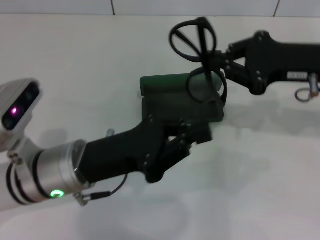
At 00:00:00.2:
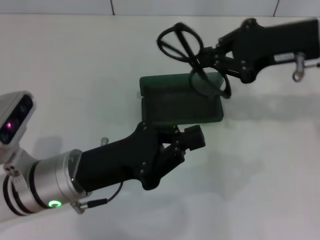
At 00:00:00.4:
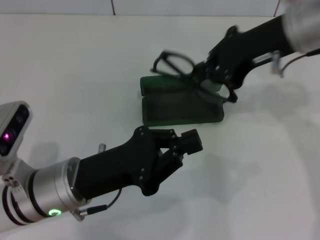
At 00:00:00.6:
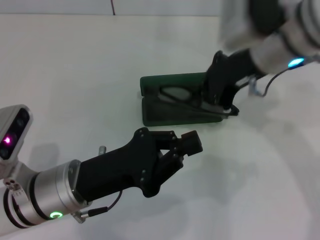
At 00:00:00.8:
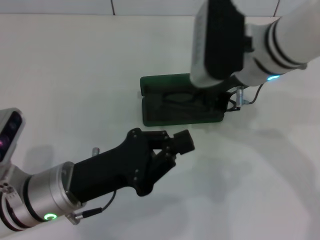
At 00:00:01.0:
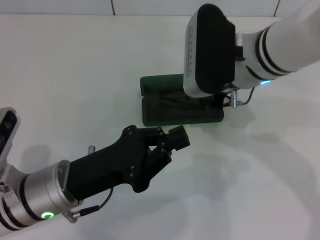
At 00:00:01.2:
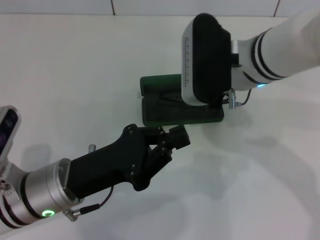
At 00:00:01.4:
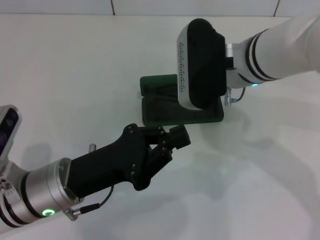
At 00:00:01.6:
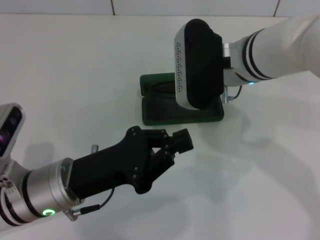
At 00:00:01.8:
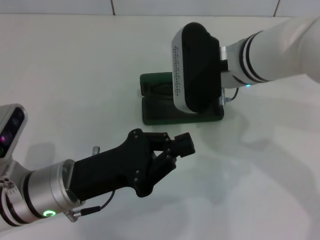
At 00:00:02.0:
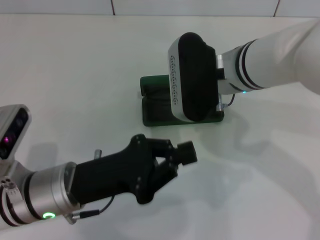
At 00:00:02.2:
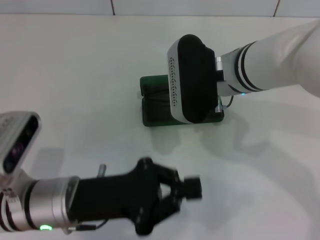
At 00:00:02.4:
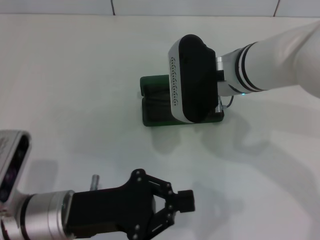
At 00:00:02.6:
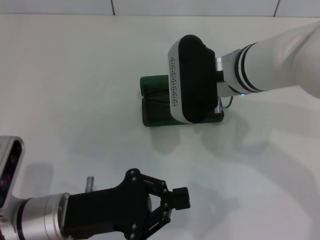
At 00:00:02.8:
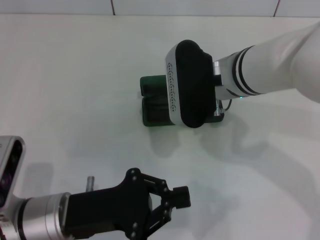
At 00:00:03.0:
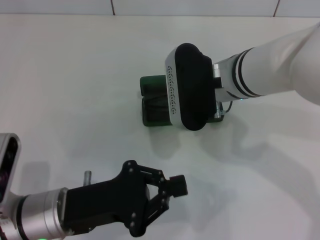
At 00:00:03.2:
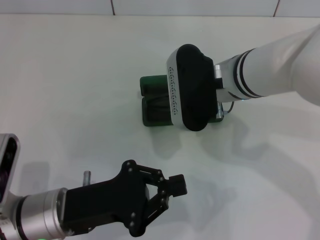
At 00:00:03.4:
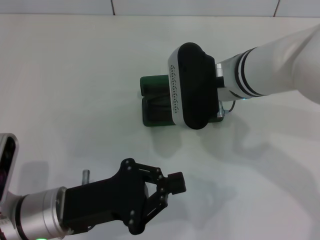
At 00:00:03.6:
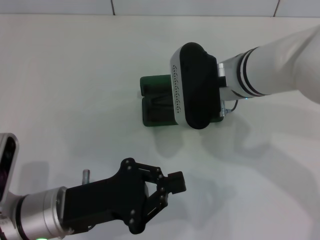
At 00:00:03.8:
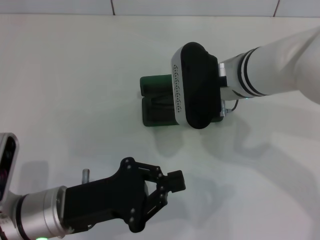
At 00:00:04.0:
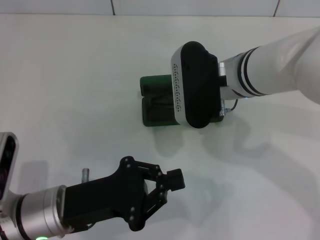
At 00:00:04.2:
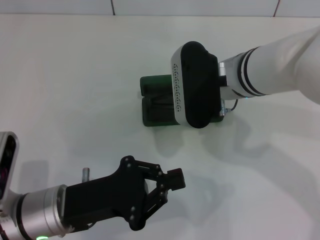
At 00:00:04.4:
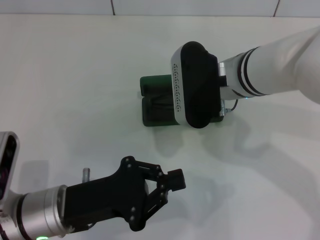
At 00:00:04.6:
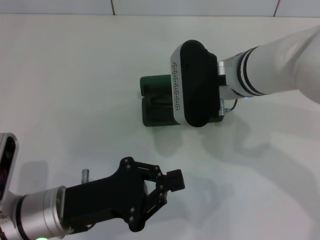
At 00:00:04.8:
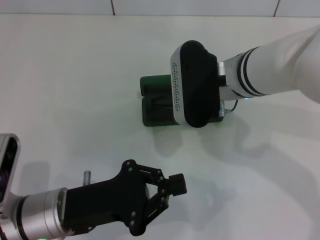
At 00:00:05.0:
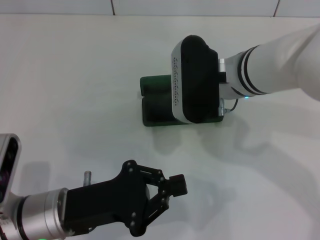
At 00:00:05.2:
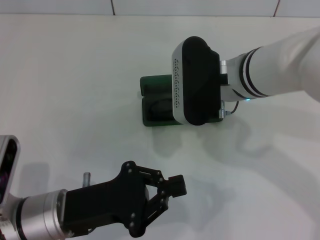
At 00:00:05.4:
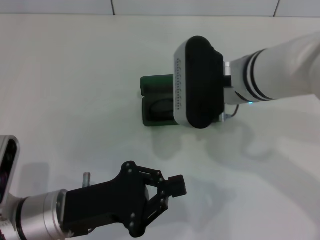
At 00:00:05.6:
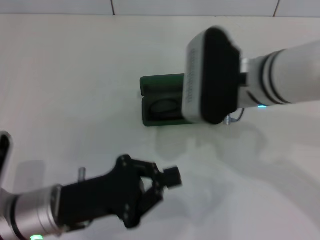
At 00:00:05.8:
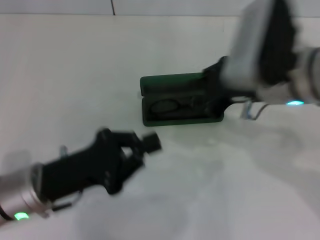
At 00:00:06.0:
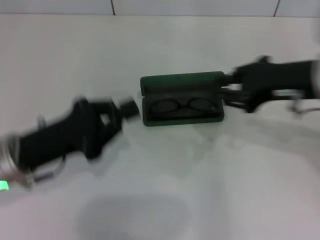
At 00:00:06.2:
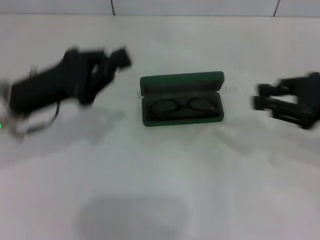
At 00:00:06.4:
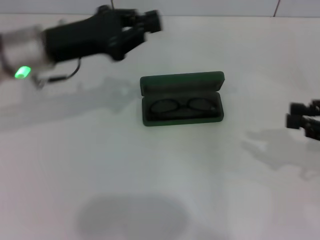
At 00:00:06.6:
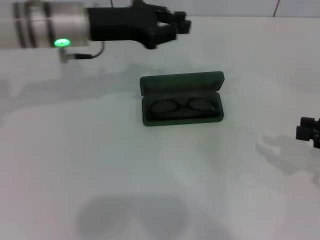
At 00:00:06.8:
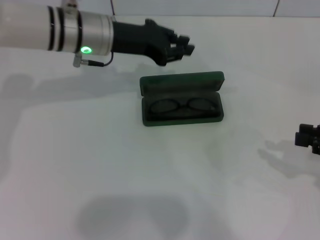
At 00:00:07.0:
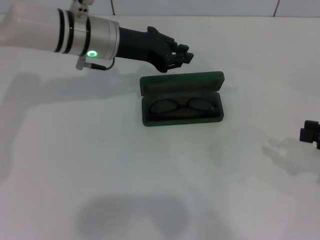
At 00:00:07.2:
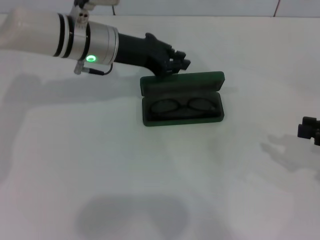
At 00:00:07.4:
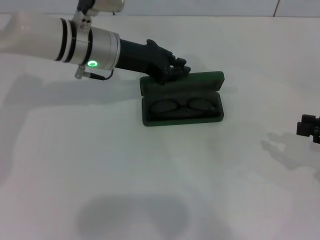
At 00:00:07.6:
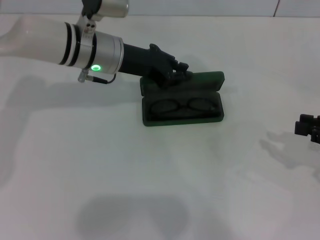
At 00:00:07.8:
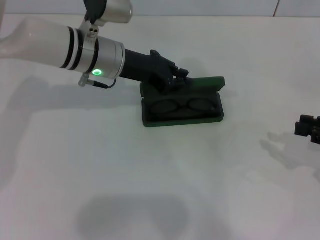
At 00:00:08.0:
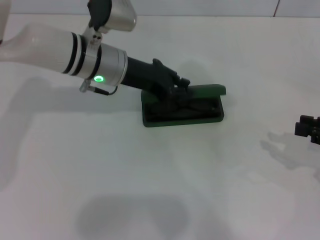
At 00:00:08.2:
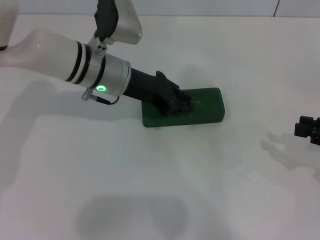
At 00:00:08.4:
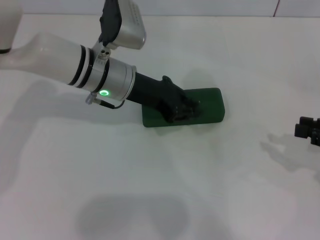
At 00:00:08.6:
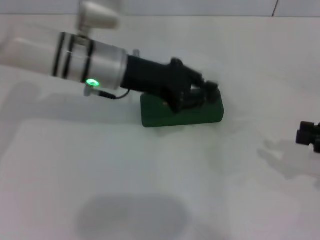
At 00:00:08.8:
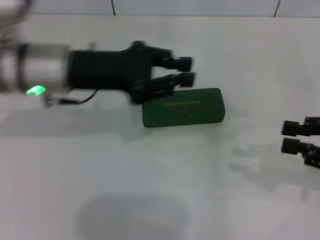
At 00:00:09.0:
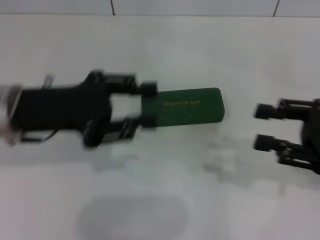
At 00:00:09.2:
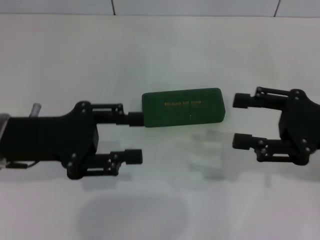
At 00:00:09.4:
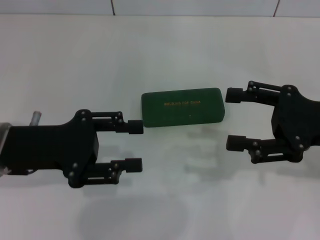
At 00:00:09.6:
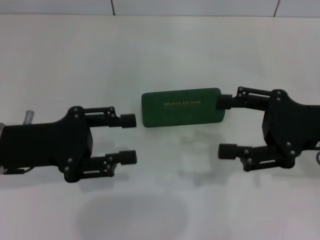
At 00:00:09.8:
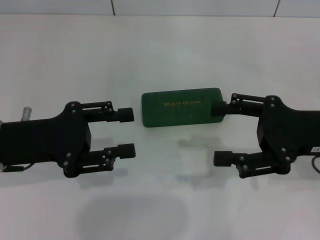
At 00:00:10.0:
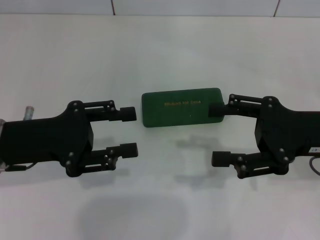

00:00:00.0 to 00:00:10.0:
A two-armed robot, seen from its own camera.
Step, 00:00:00.0 to 00:00:05.4: Put the glasses into the case with your right hand.
Step, 00:00:05.8 to 00:00:08.2: Close the glasses case with your left hand.
00:00:00.0 to 00:00:01.4: The right gripper shifts approximately 15 cm to the left.
00:00:02.8 to 00:00:04.2: The two grippers keep their place.
00:00:04.2 to 00:00:05.8: The right gripper is displaced to the right by some 5 cm.
00:00:05.8 to 00:00:07.2: The right gripper moves to the right, some 20 cm. Meanwhile the left gripper shifts some 20 cm forward.
00:00:07.2 to 00:00:08.6: The left gripper shifts by some 5 cm.
00:00:08.6 to 00:00:10.0: The right gripper is displaced to the left by about 10 cm, and opens up; the left gripper shifts some 15 cm to the left and backward, and opens its fingers.

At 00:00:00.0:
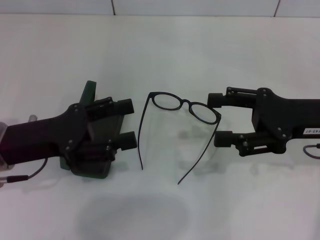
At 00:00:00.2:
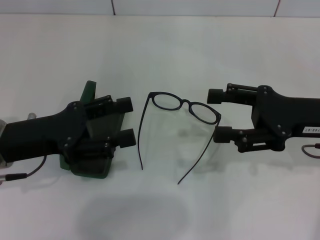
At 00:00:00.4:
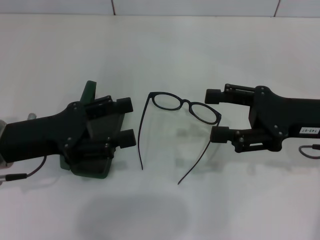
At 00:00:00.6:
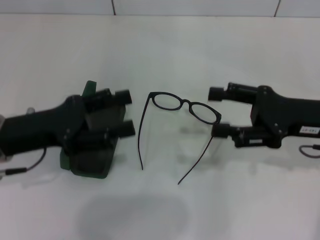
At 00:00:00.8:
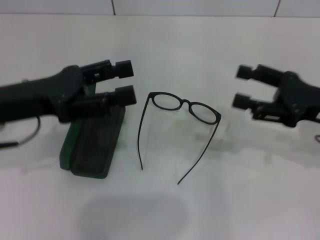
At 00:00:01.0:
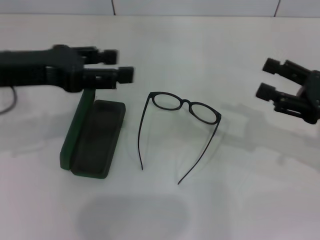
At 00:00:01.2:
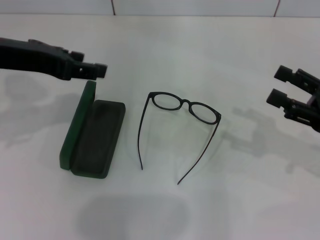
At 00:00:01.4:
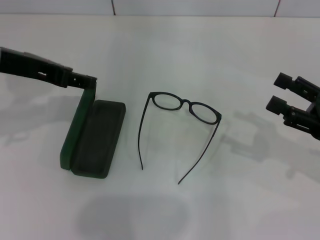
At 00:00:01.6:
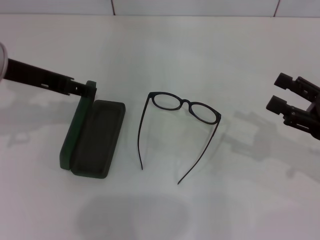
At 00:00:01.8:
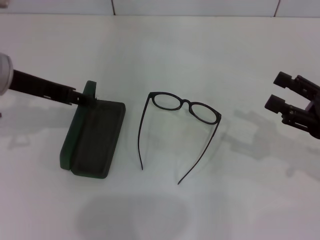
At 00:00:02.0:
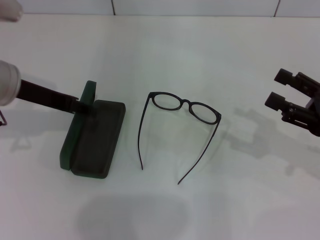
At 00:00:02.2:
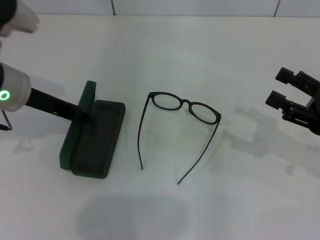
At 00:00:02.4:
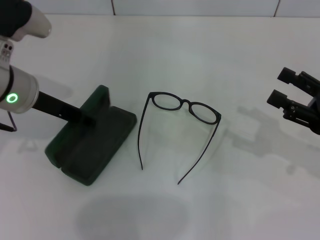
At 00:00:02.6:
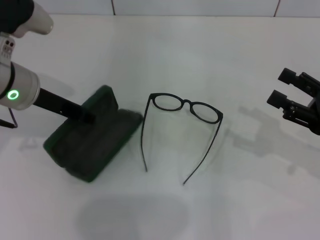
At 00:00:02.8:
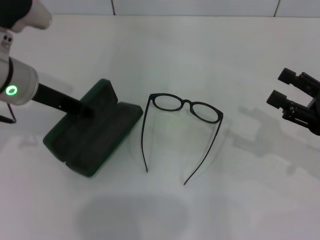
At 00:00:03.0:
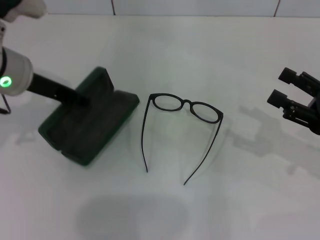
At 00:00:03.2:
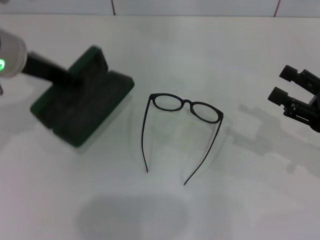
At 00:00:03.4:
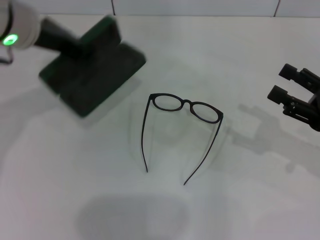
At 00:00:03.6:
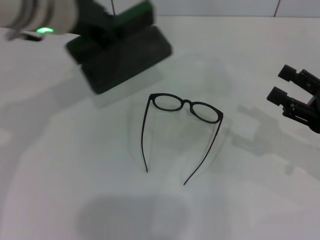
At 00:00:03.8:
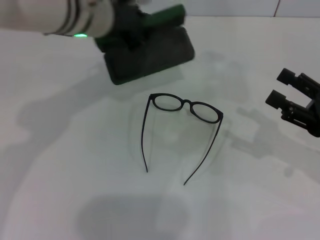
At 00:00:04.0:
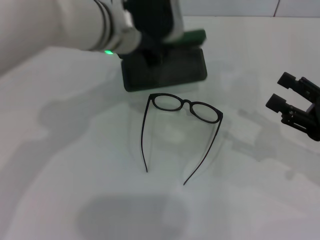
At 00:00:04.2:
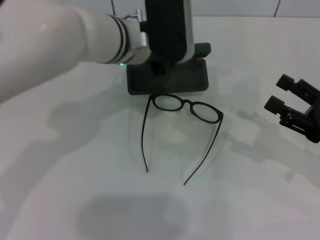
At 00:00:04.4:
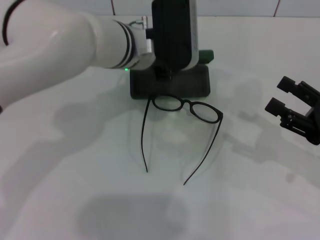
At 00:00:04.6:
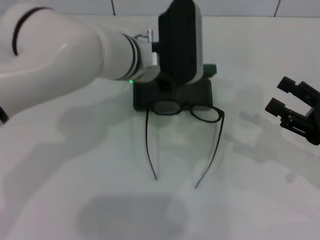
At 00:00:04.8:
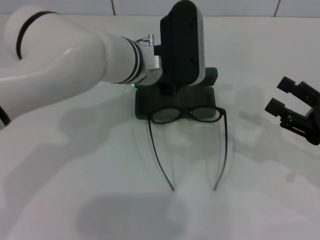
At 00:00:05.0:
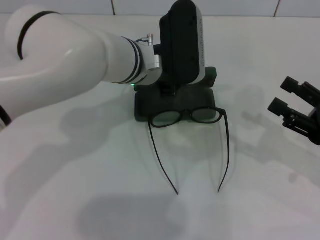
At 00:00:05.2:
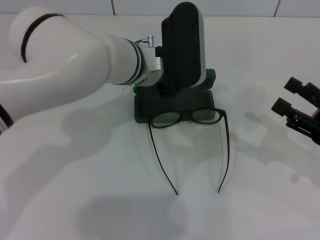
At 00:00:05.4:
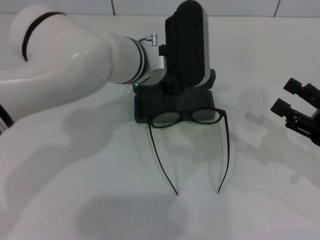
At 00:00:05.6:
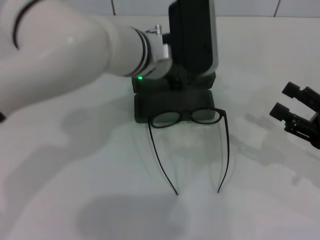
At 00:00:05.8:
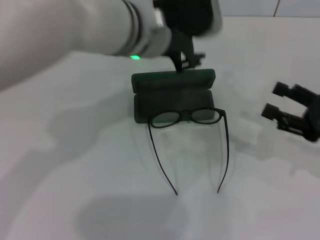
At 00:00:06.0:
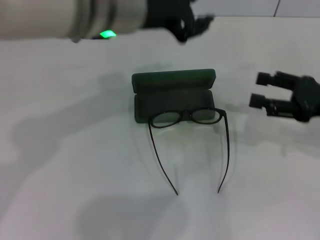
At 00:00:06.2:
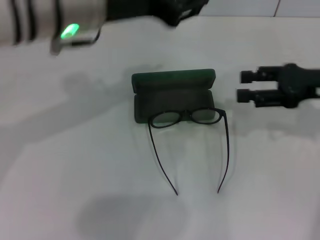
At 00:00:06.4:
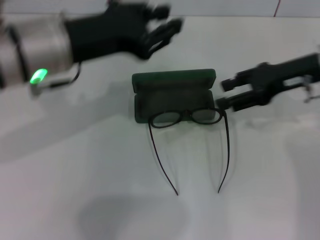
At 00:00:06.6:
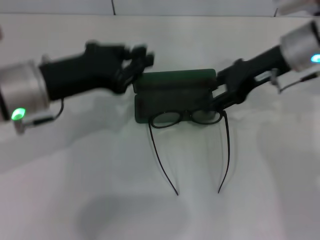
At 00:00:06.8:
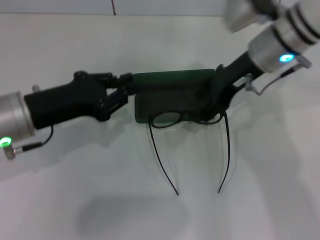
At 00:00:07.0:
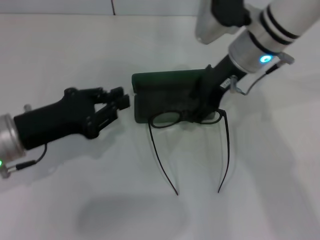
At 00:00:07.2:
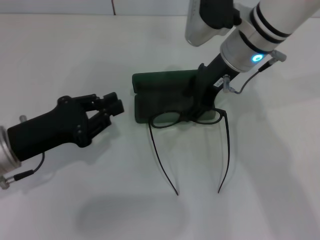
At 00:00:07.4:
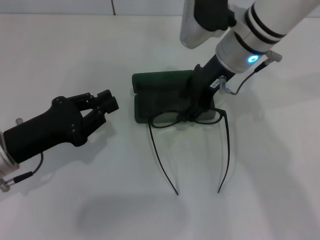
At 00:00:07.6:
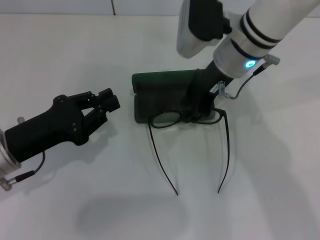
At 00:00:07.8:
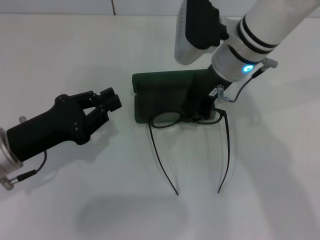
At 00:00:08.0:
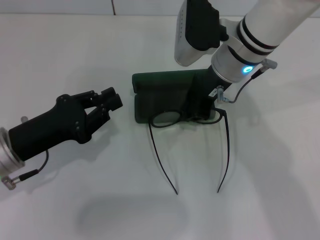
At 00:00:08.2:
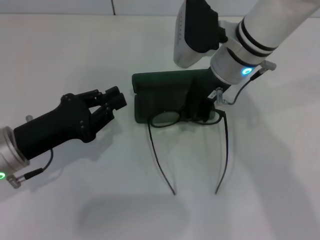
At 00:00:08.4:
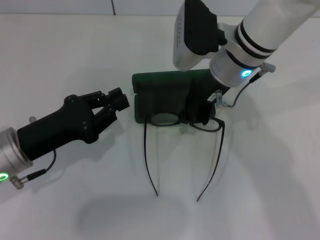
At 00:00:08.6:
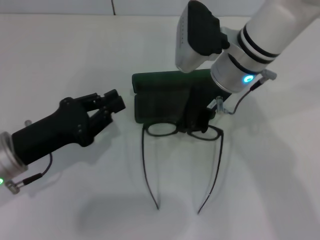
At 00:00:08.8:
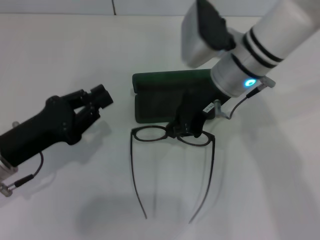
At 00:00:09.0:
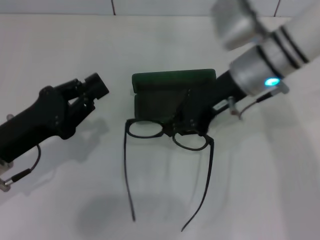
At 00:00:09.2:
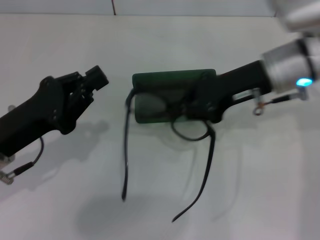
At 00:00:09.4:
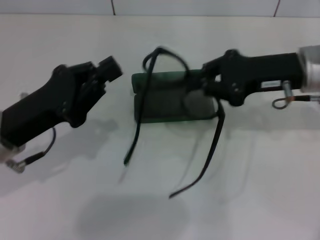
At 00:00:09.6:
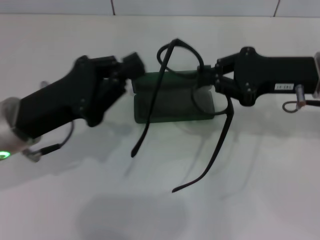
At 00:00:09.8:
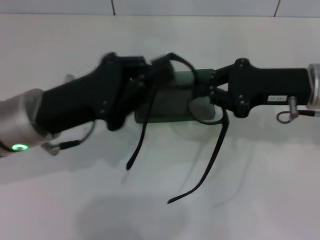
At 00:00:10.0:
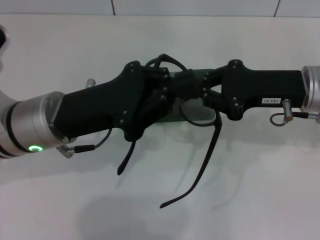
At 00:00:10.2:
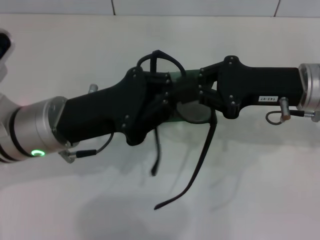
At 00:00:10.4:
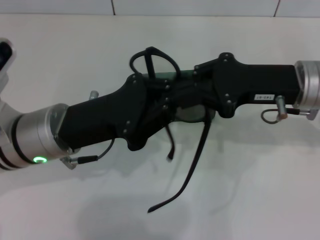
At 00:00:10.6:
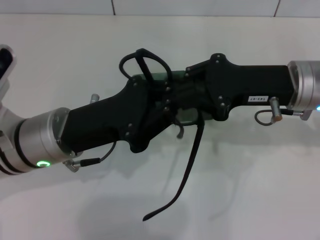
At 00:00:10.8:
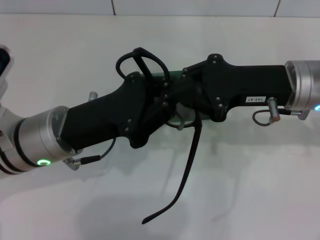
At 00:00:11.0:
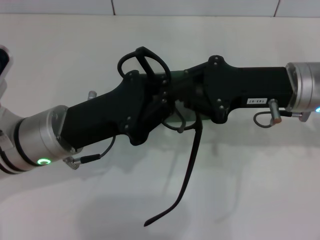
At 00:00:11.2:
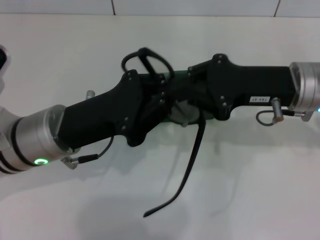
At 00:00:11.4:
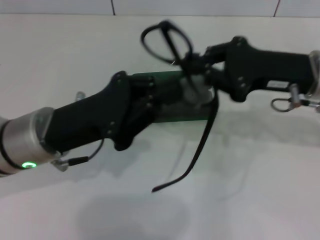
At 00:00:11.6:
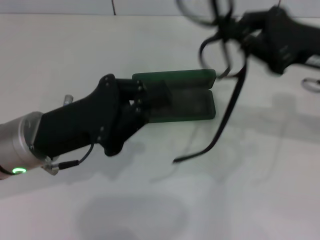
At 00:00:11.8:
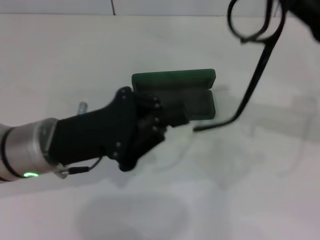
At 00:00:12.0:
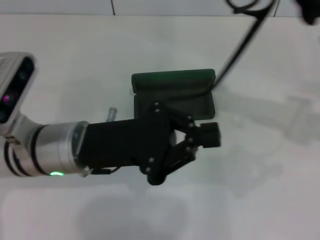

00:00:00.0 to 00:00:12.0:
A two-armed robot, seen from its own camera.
Step, 00:00:00.0 to 00:00:02.2: Grab the glasses case with your left hand.
Step, 00:00:02.4 to 00:00:05.2: Place the glasses case in the center of the table with your left hand.
Step, 00:00:05.4 to 00:00:08.2: Grab the eyeglass frame with your right hand.
00:00:00.0 to 00:00:01.6: The left gripper goes approximately 15 cm upward and forward, while the right gripper travels to the right by about 5 cm.
00:00:01.6 to 00:00:03.0: The left gripper closes.
00:00:03.0 to 00:00:04.4: The left gripper shifts about 15 cm to the right.
00:00:04.4 to 00:00:06.0: The right gripper moves forward, roughly 5 cm. Meanwhile the left gripper is displaced upward and backward by about 10 cm.
00:00:06.0 to 00:00:07.6: The left gripper heads downward, to the left and backward, covering roughly 25 cm. Meanwhile the right gripper goes some 20 cm to the left.
00:00:07.6 to 00:00:09.0: The right gripper closes up.
00:00:09.0 to 00:00:10.4: The left gripper travels to the right by some 10 cm; the right gripper heads to the right and backward, covering about 10 cm.
00:00:10.4 to 00:00:12.0: The right gripper is displaced to the right by approximately 5 cm.
